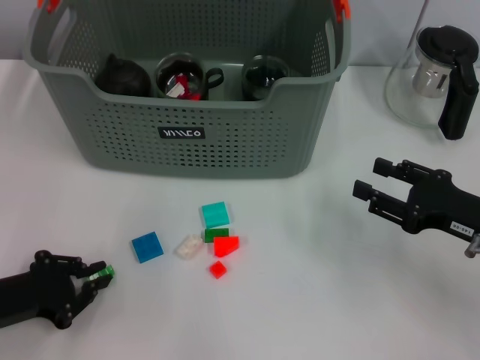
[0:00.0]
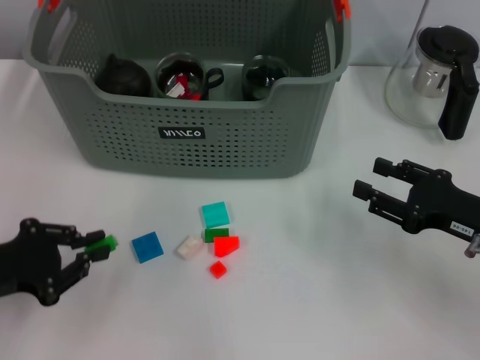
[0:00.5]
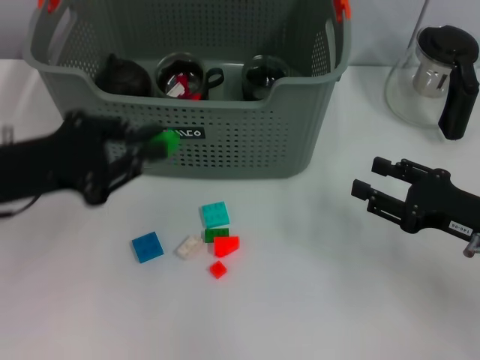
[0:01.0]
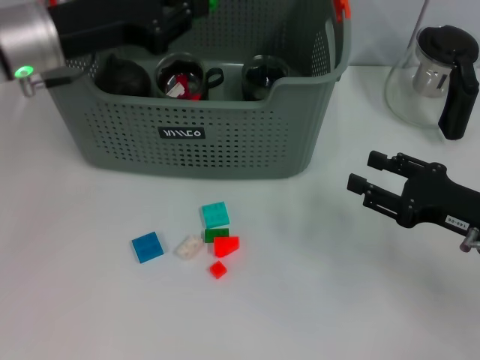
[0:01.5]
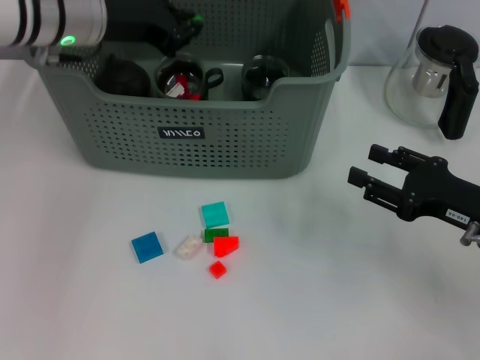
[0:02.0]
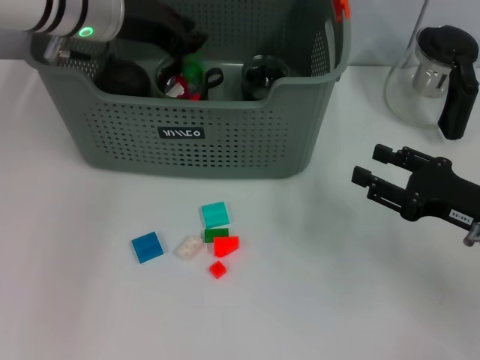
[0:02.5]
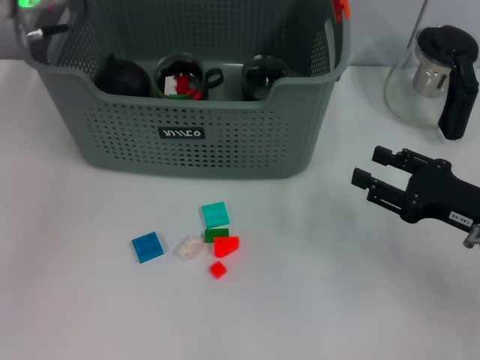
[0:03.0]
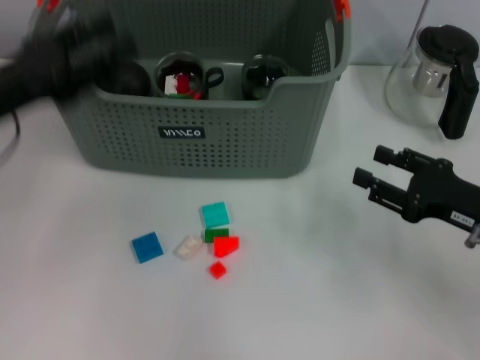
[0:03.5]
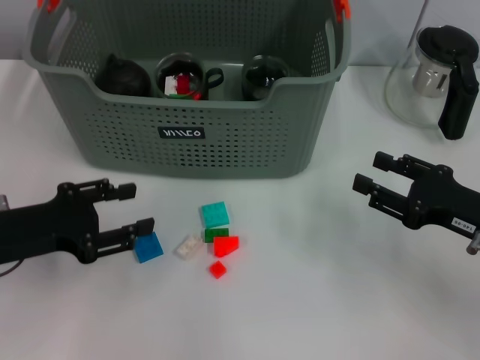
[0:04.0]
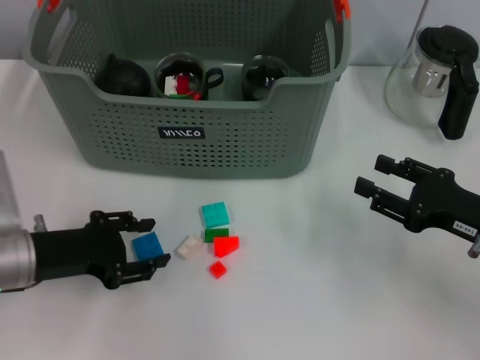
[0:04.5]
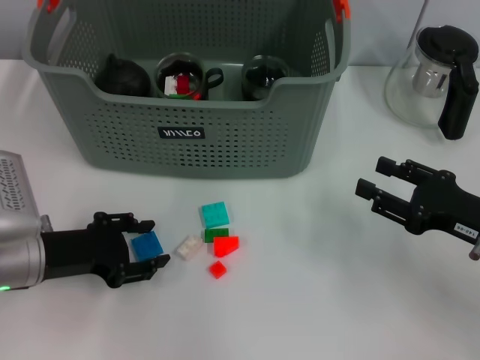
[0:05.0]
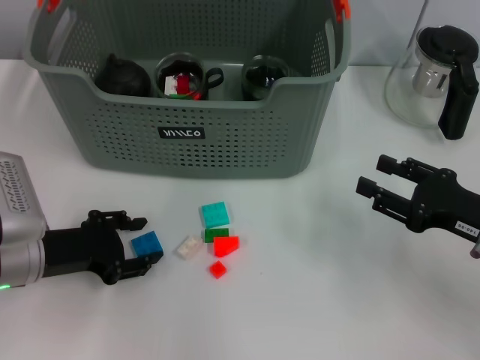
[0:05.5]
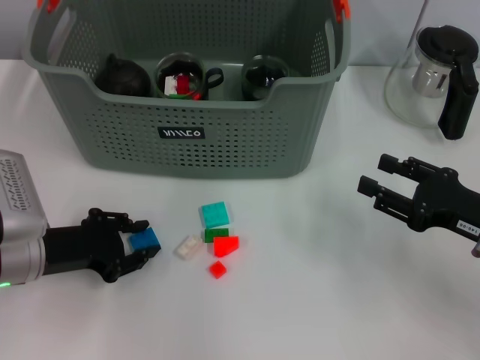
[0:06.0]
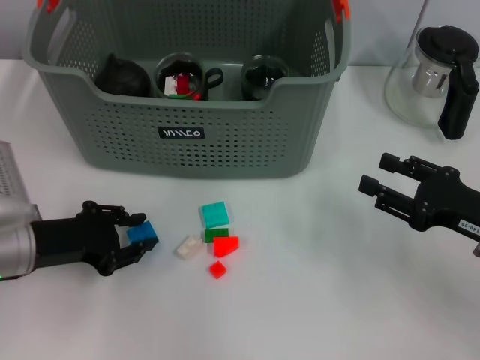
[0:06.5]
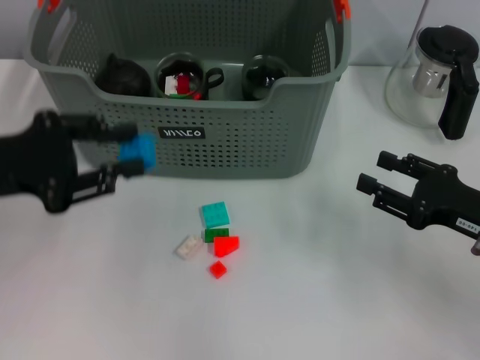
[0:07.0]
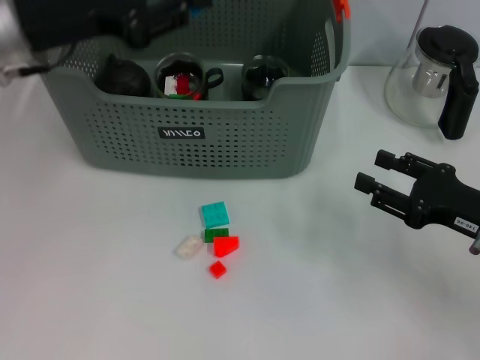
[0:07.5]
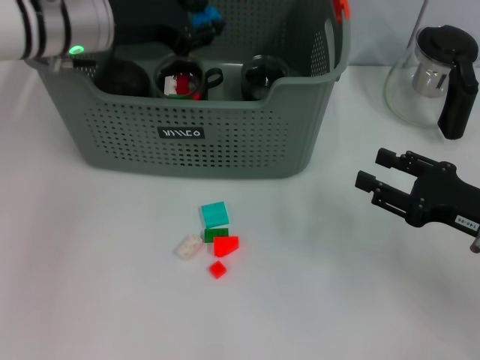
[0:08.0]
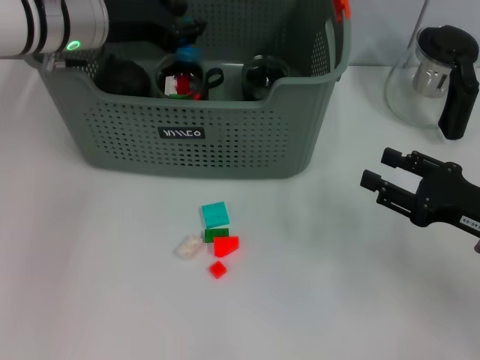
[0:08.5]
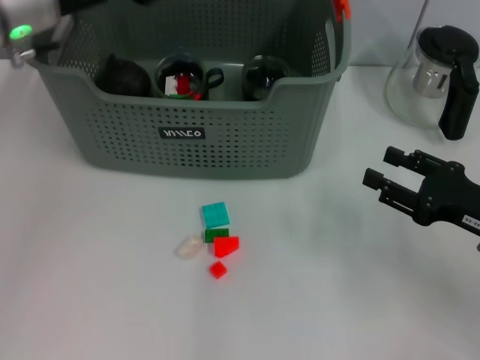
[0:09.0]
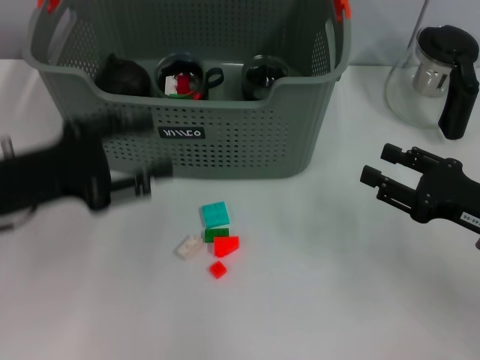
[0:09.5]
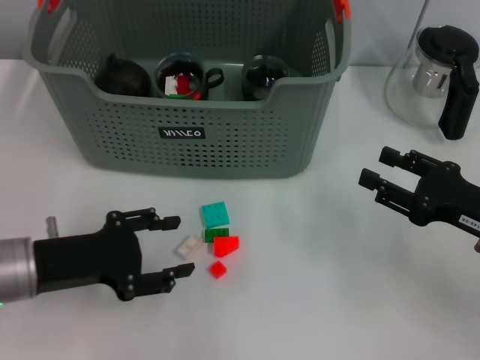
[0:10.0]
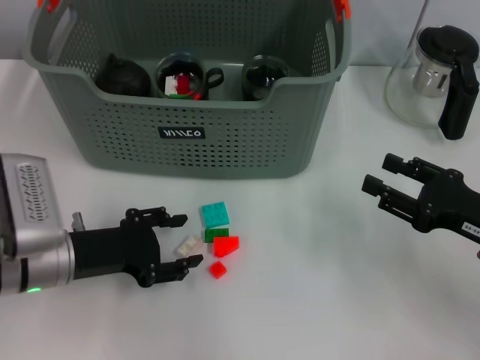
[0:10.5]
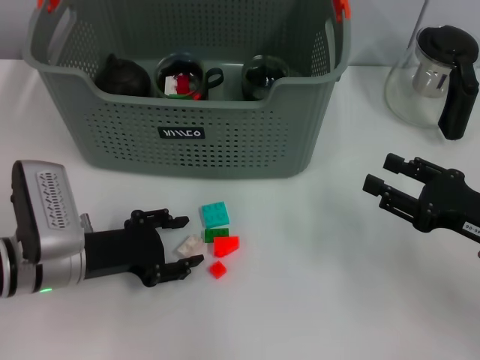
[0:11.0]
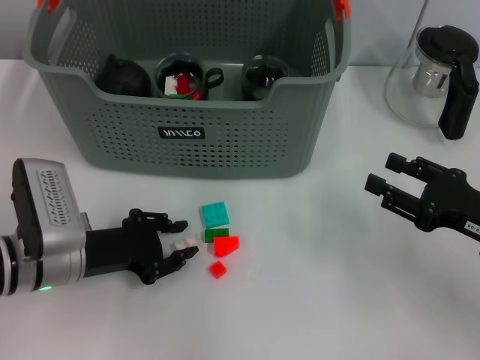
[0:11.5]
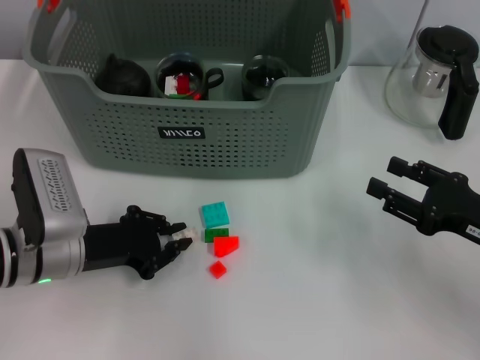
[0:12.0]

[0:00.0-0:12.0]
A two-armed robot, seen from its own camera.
Task of the whole recording: pick up the teacup on the table and place it into the storage bin, pick up the block on the table and place it into the storage bin.
Step, 0:00.0 to 0:02.5: Place the green block in the storage box with left gripper.
Step, 0:03.0 to 0:06.0: Grasp the dark blue block with left gripper.
Step, 0:06.5 to 0:09.0: Place the dark blue block in the storage box with left gripper.
Step, 0:09.5 to 0:11.5: Grasp the white block with left gripper.
0:00.0 to 0:02.0: The left gripper heads forward, upward and to the right, covering roughly 30 cm.
0:02.0 to 0:04.0: The left gripper heads backward, downward and to the left, covering about 25 cm, and opens.
0:04.0 to 0:06.0: The left gripper changes place by about 5 cm.
0:06.0 to 0:08.0: The left gripper goes approximately 20 cm forward, upward and to the right.
0:08.0 to 0:10.0: The left gripper shifts roughly 20 cm backward and downward.
0:10.0 to 0:12.0: The left gripper ends up some 5 cm from where it was, and closes.

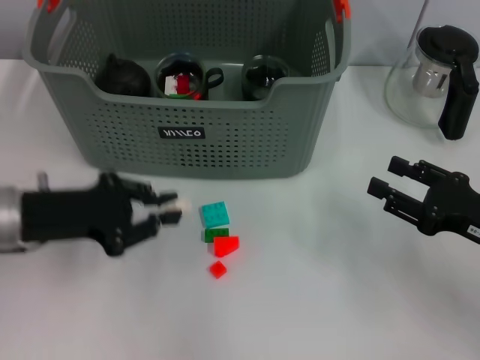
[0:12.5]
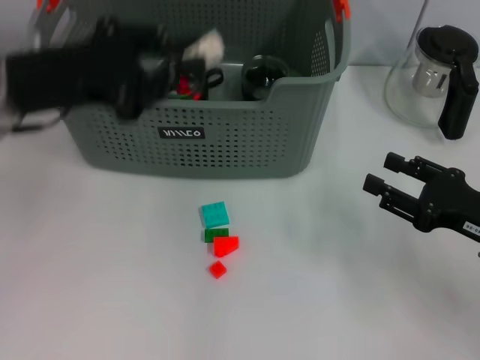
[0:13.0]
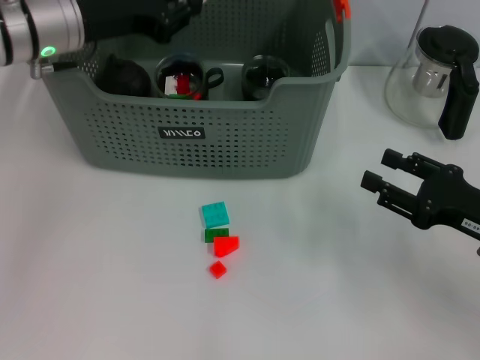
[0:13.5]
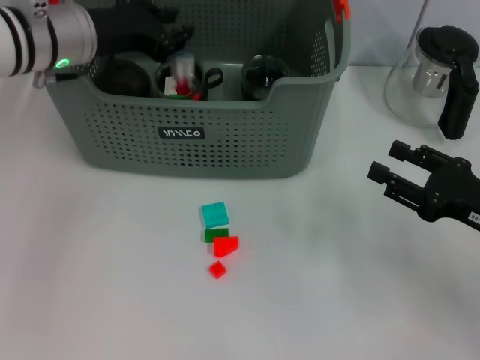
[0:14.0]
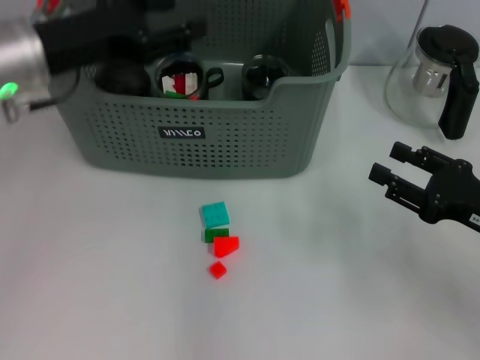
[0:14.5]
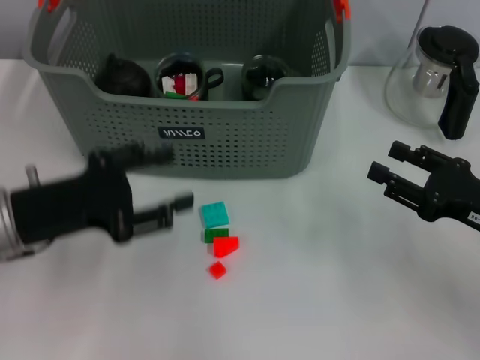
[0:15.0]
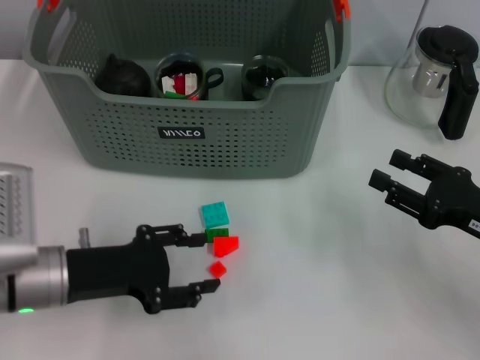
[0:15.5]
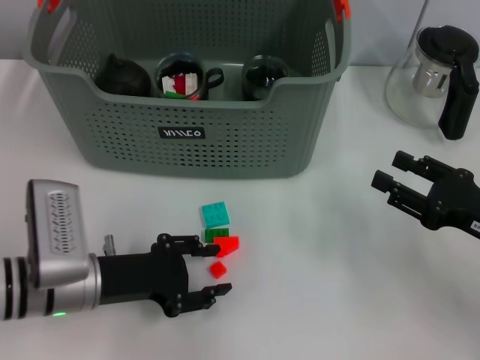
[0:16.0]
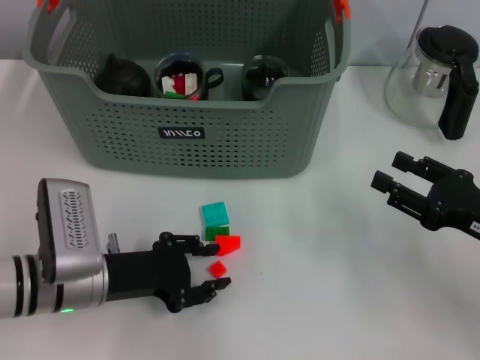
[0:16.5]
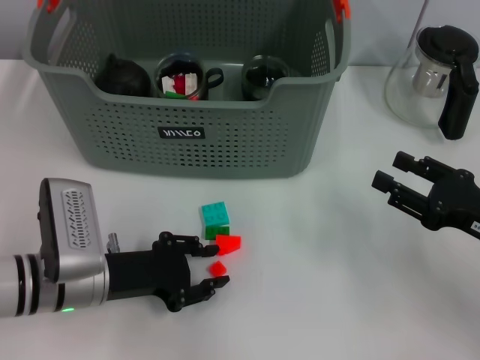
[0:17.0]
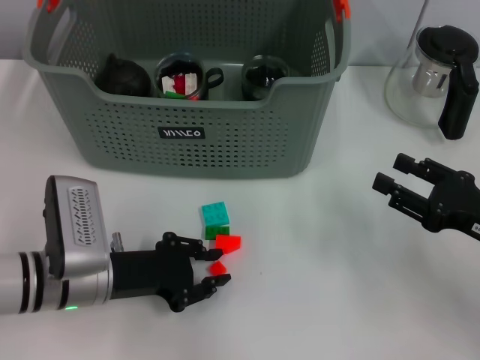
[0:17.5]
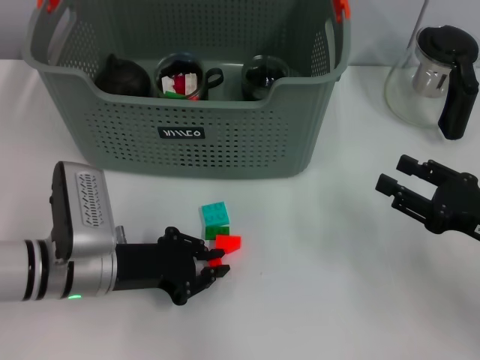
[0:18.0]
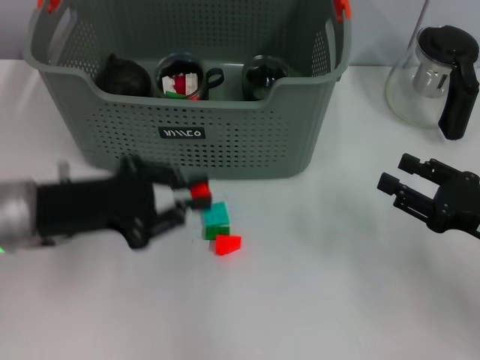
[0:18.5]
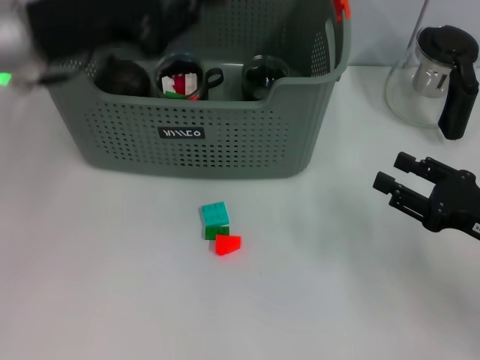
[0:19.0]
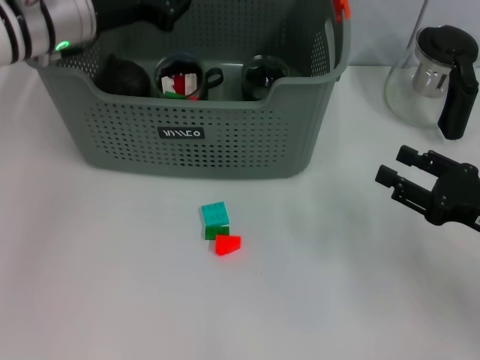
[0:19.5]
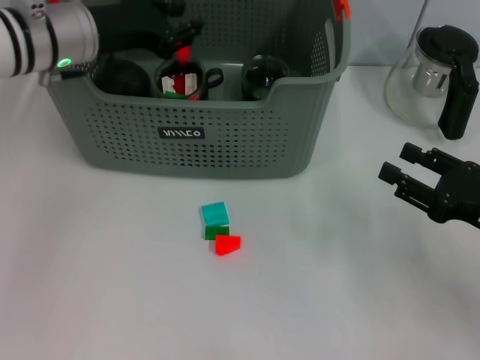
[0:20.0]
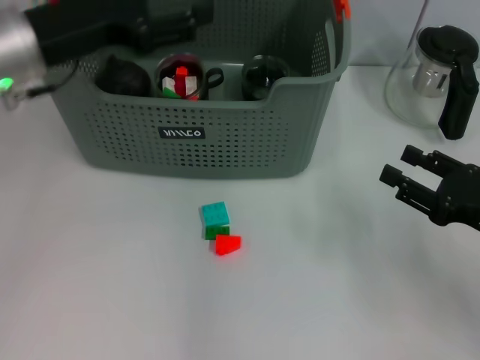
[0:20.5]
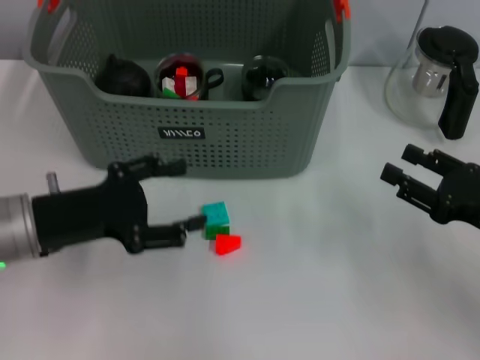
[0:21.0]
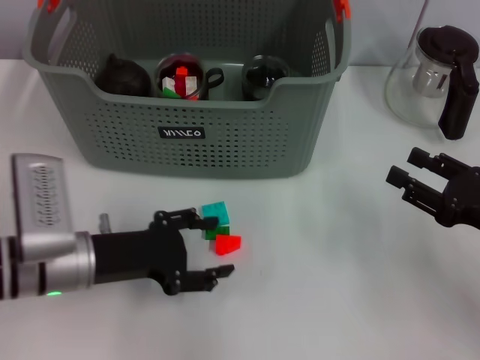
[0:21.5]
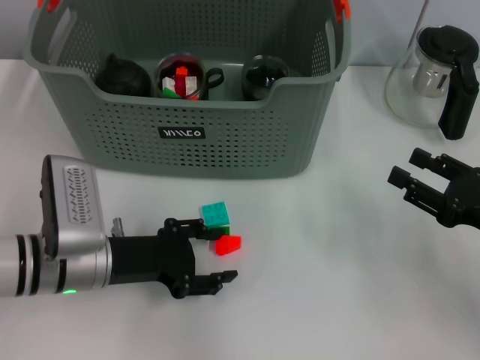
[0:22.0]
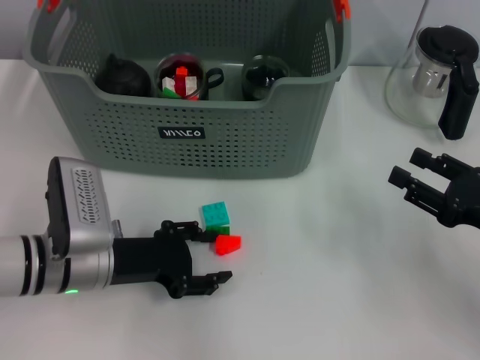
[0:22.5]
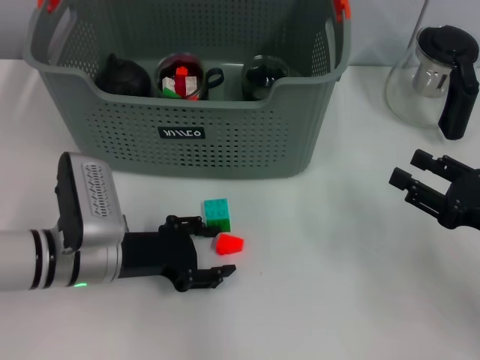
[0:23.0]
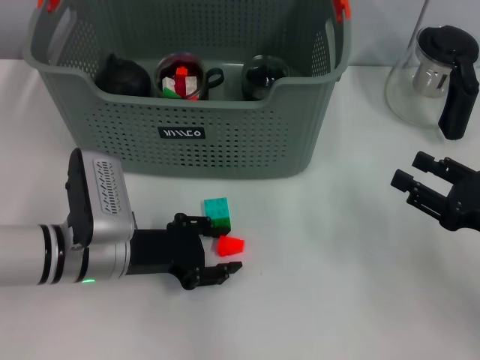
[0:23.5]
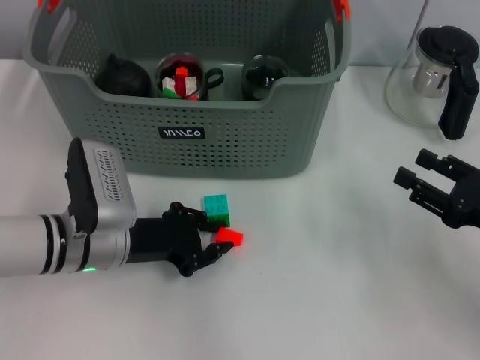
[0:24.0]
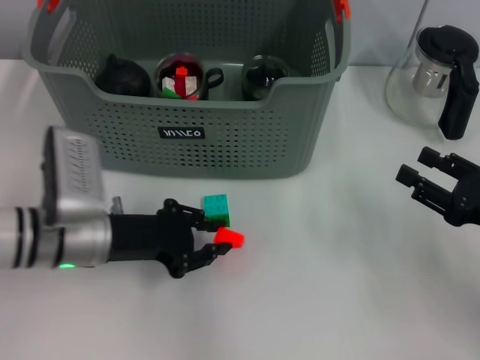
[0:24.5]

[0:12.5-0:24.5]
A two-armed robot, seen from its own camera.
Task of the whole recording: pick up the teacup on the table and place it into the storage bin, pick up the block on the table and place it into the storage bin.
Step, 0:12.5 to 0:14.0: Place the white block in the storage box with left gripper.
Step, 0:14.5 to 0:17.5: Grasp the orange block with left gripper.
Step, 0:18.0 to 0:20.0: Place the orange block in the storage box with left gripper.
Step, 0:20.5 to 0:24.0: Grasp the orange block with left gripper.
0:12.5 to 0:14.5: The left gripper heads upward and forward, covering some 10 cm, and opens.
0:14.5 to 0:16.5: The left gripper heads downward and backward, covering some 20 cm.
0:16.5 to 0:18.5: The left gripper moves upward, about 10 cm, and closes.
0:18.5 to 0:20.5: The left gripper moves upward and forward, some 10 cm, and opens.
0:20.5 to 0:22.5: The left gripper heads downward and backward, covering about 20 cm.
0:22.5 to 0:24.5: The left gripper closes its fingers.

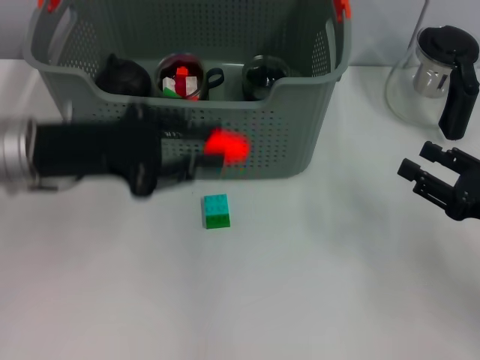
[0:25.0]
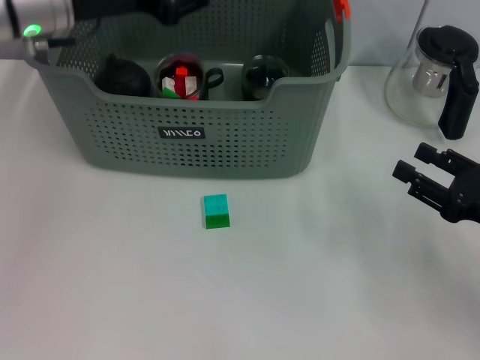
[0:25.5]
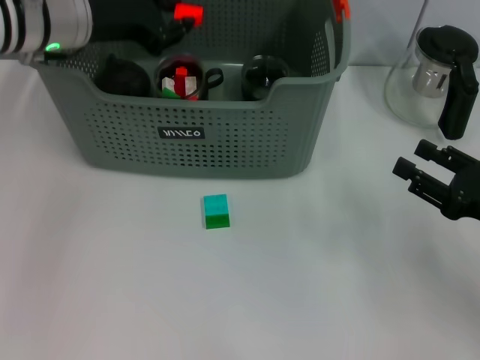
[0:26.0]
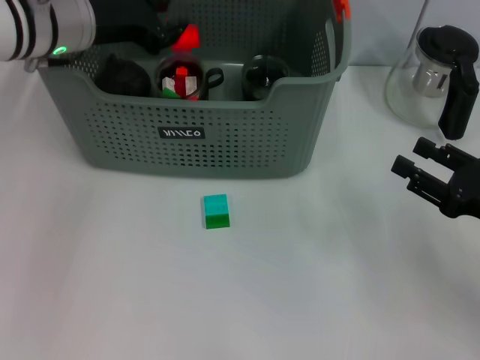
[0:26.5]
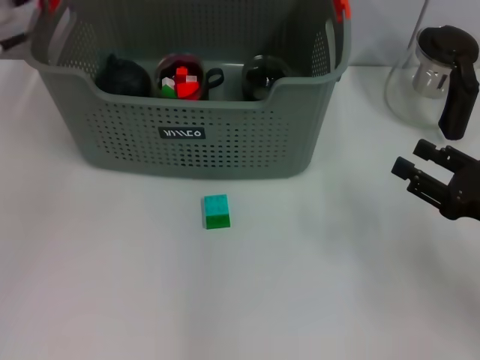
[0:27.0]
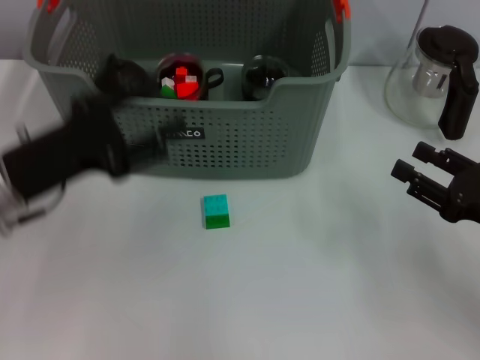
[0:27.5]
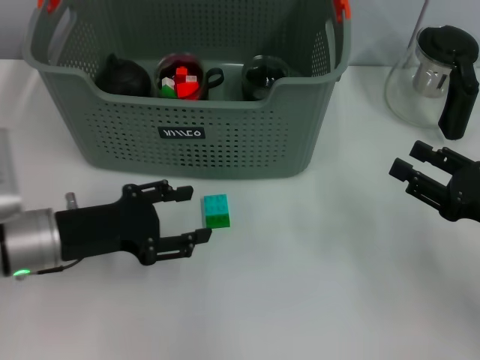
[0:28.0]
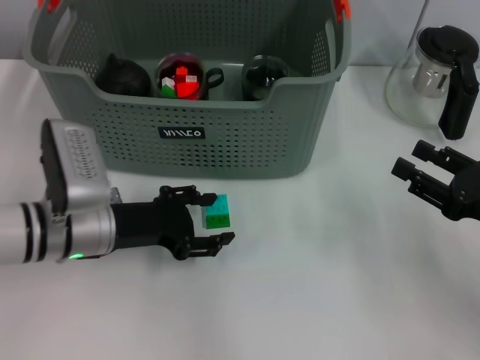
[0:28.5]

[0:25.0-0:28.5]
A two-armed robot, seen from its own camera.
Task of the whole recording: pick up the teacup on the table and place it into the storage bin, pick up the block on the table and place it into the storage bin.
Step, 0:25.0 to 0:26.5: Place the orange block in the storage box with left gripper.
0:25.0 to 0:27.0: The left gripper goes approximately 10 cm upward and forward, and opens up.
0:27.0 to 0:28.5: The left gripper travels downward by approximately 20 cm.
